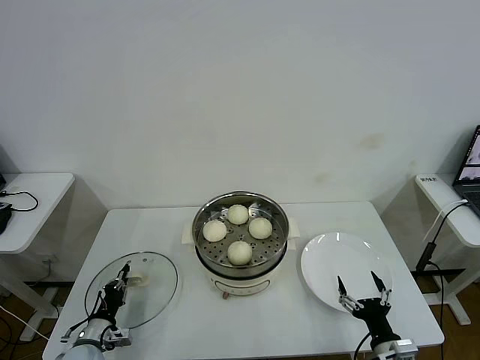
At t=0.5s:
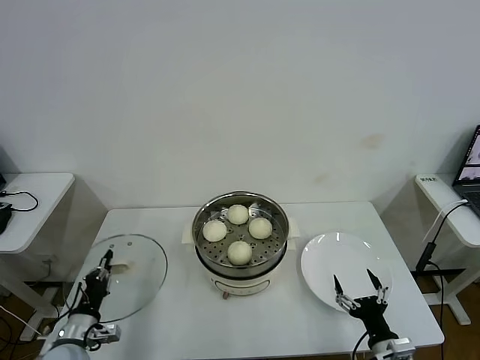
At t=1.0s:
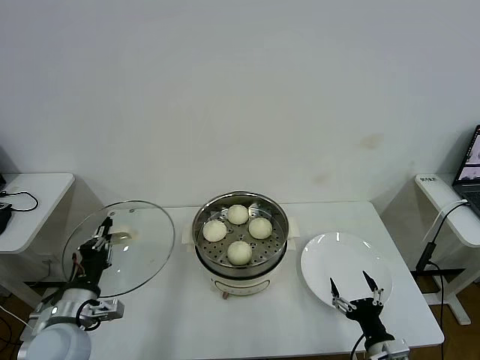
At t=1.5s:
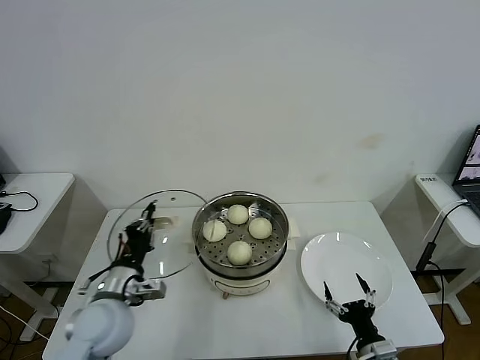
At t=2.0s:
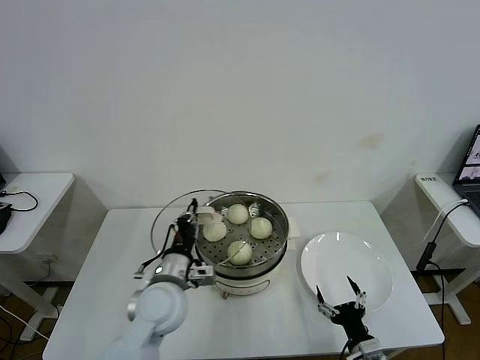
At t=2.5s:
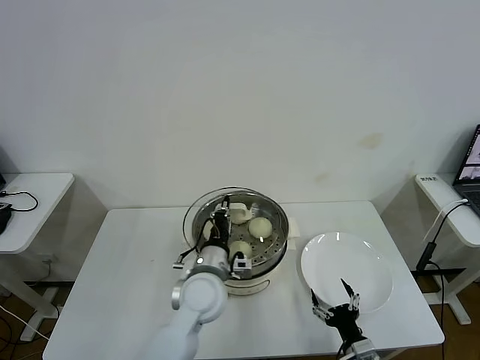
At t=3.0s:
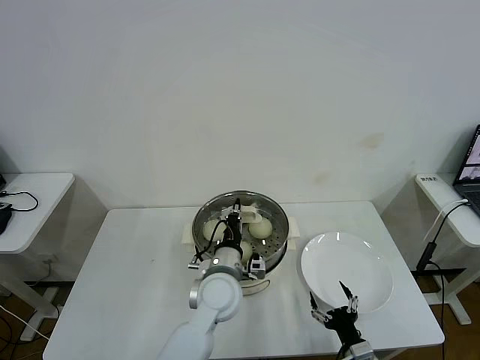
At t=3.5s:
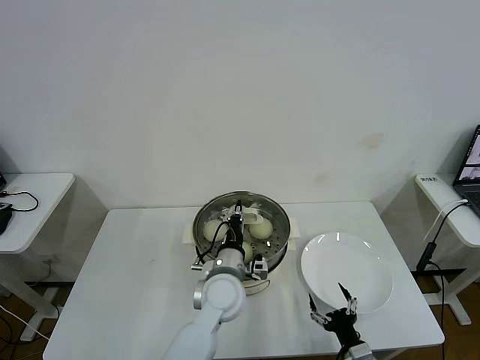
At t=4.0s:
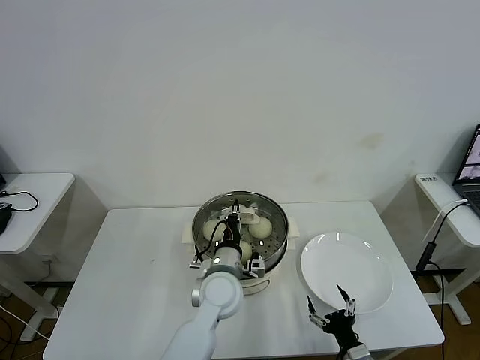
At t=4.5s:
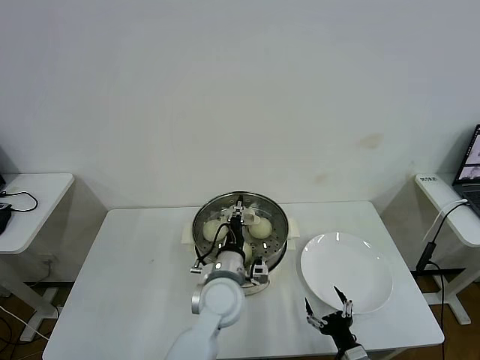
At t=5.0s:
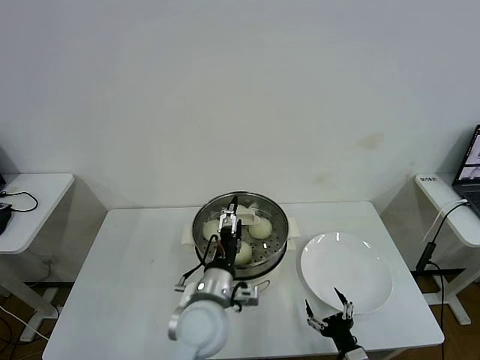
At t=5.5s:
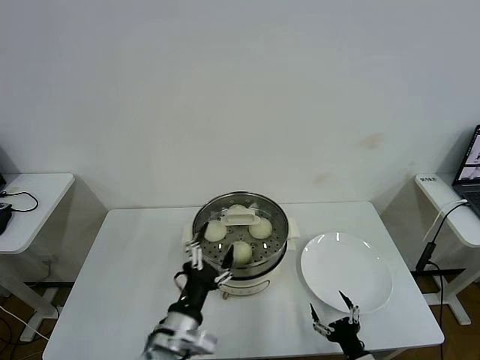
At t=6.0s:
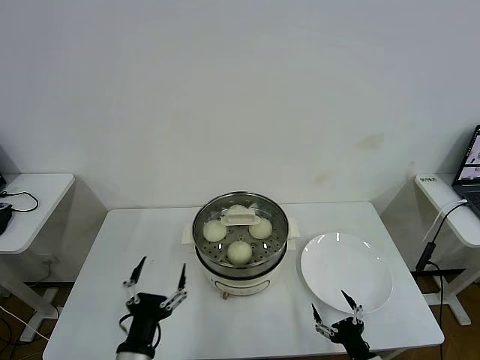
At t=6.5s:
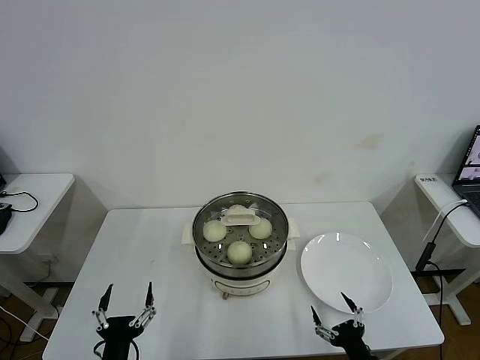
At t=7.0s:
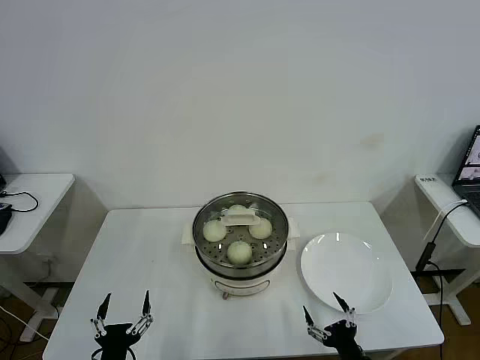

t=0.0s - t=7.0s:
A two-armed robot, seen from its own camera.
Task of the whole recording: take steamed baozi put them in steamer then cover it.
Step, t=0.0s - t=4.5s: Place the pot lid on the steamer with left gripper.
t=0.0s - t=2.0s: The left gripper goes roughly 30 cm to the right and upward.
t=2.0s - t=3.5s: The left gripper travels to the right by roughly 10 cm.
t=3.5s - t=5.0s: The left gripper moves backward, roughly 5 cm, and opens.
t=5.0s - t=7.0s: The left gripper moves to the left, backward and downward, some 30 cm.
